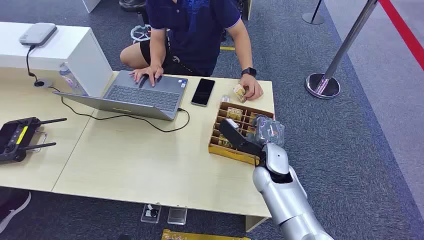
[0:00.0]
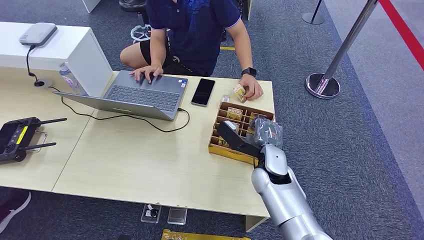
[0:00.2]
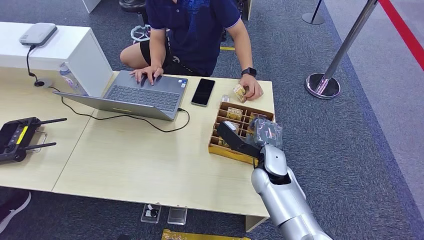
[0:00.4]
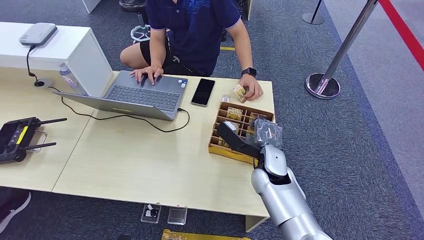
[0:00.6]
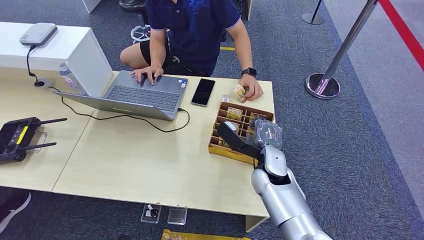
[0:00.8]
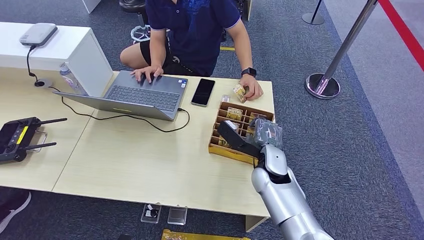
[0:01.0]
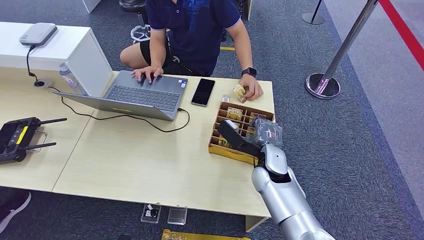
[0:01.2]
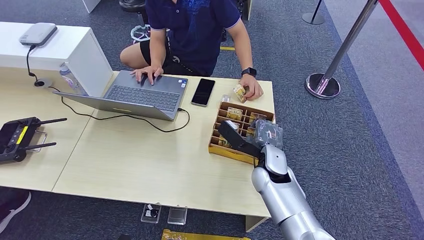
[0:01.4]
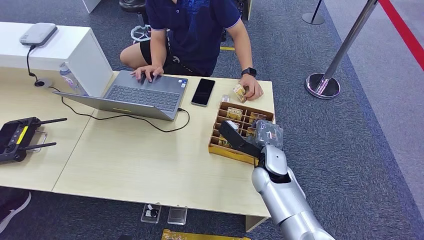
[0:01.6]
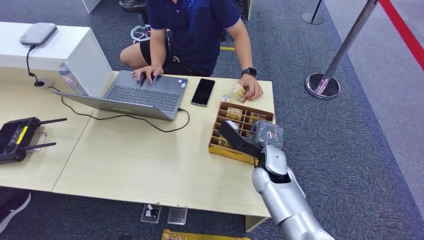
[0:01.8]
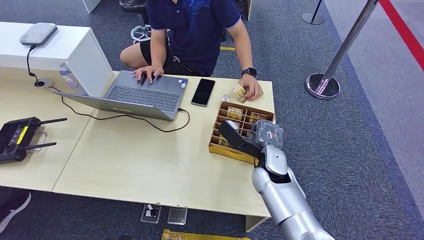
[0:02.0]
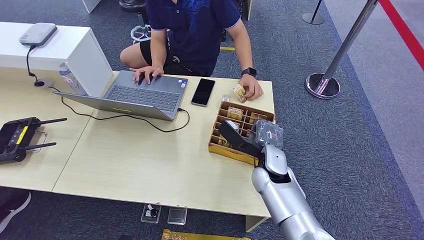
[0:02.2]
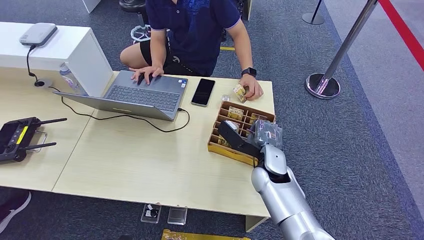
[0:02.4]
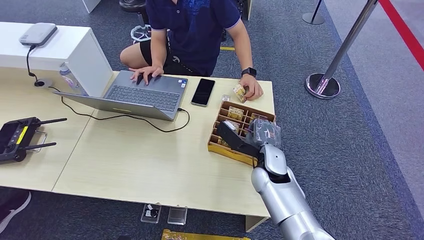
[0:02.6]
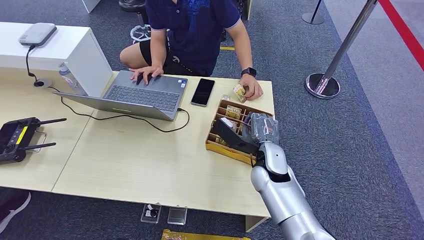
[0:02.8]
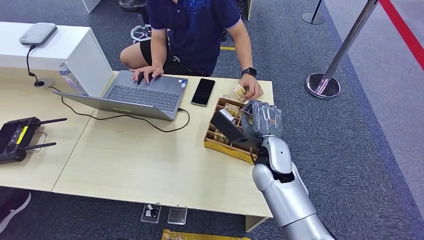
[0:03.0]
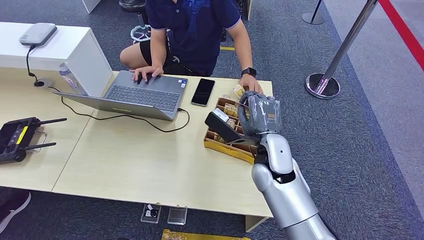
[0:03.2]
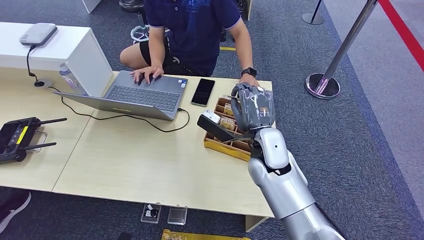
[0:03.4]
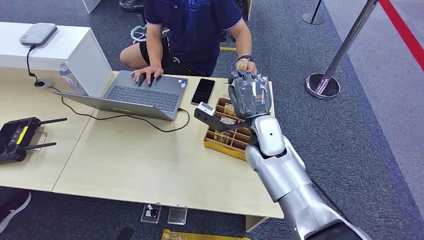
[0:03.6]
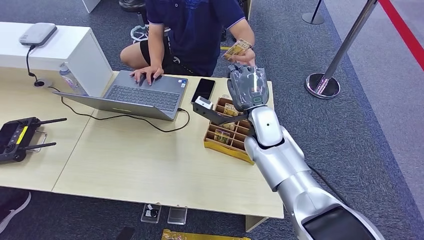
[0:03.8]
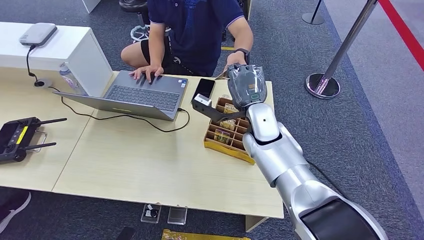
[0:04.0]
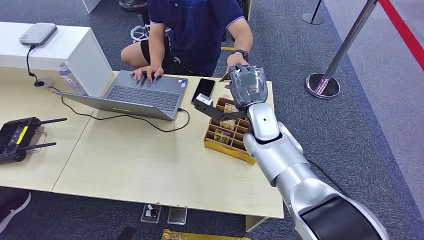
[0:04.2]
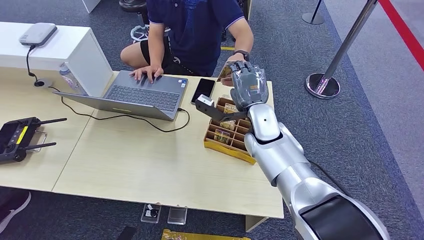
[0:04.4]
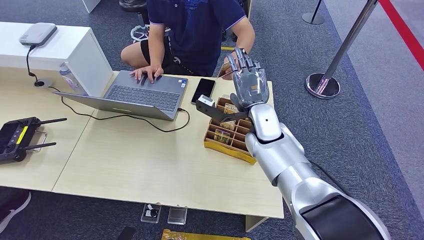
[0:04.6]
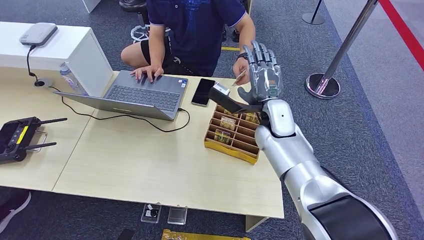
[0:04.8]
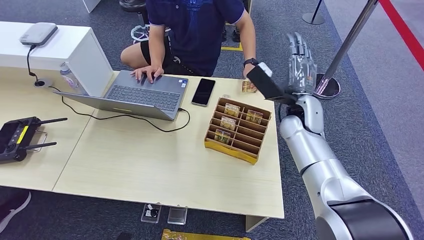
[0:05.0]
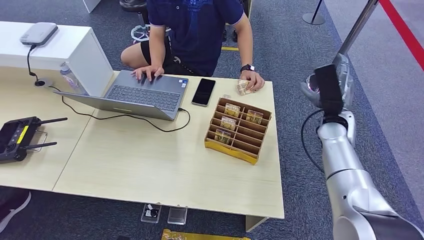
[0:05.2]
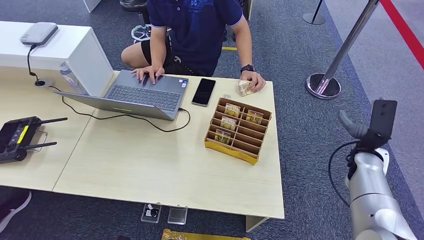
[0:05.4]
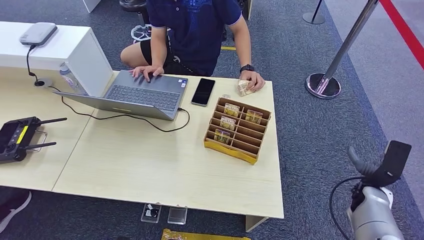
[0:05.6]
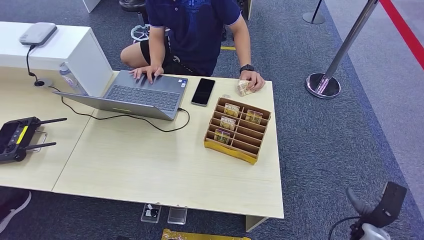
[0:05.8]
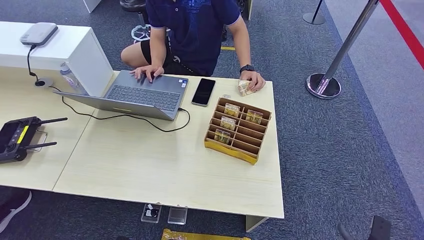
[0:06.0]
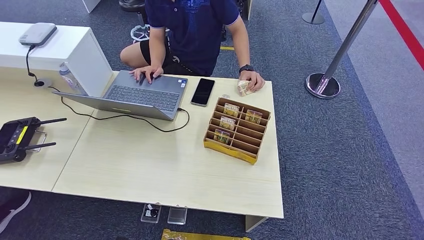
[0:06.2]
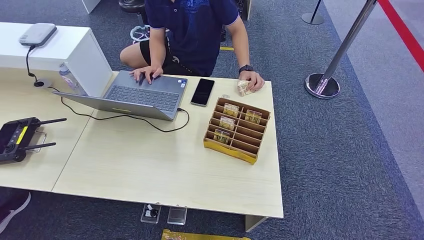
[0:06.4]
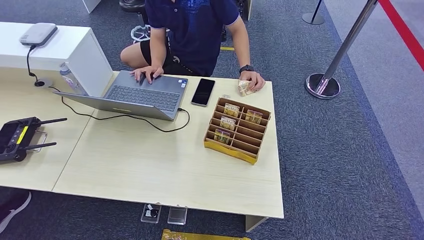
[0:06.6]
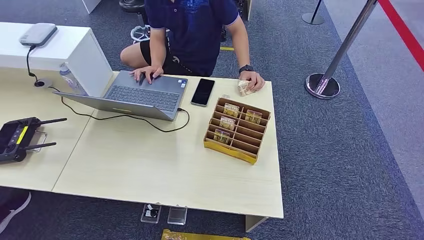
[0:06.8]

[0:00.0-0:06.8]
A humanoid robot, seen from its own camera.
Step, 0:00.0 to 0:02.0: Pick up the key card from the card box.
Step, 0:03.4 to 0:06.6: Hand the key card to the target.
0:01.4 to 0:02.8: Both hands stay about where they are.
0:02.8 to 0:04.0: The right hand moves roughly 5 cm.
0:04.0 to 0:05.4: The right hand heads to the right, covering some 30 cm.
0:05.4 to 0:06.8: The right hand moves backward and downward, about 50 cm.
